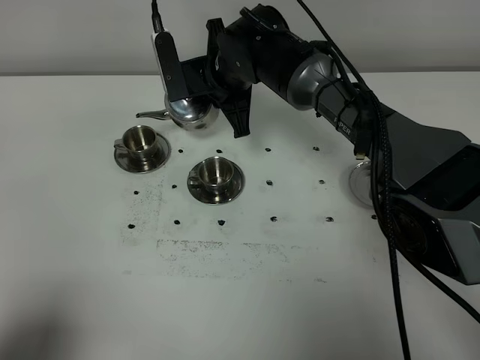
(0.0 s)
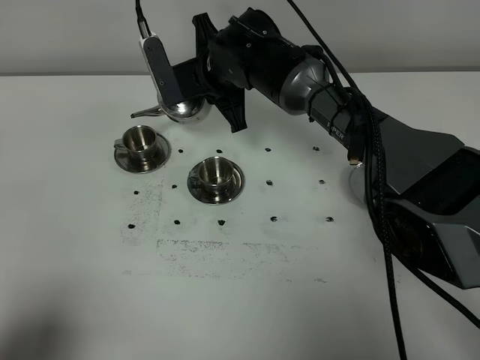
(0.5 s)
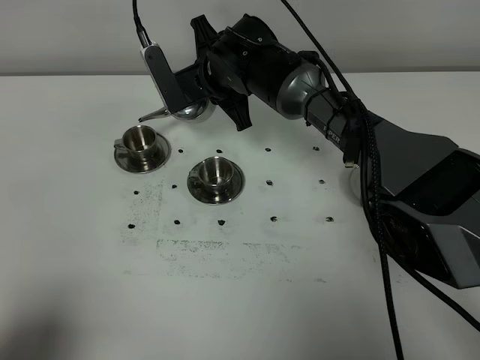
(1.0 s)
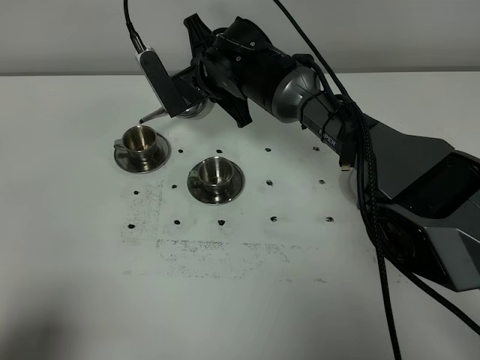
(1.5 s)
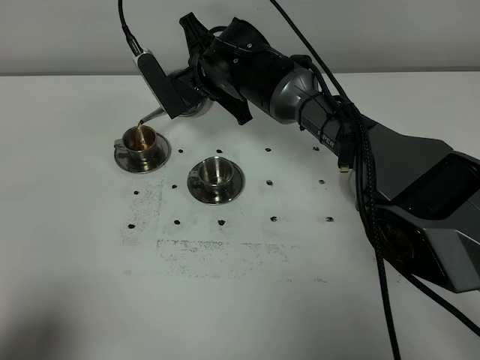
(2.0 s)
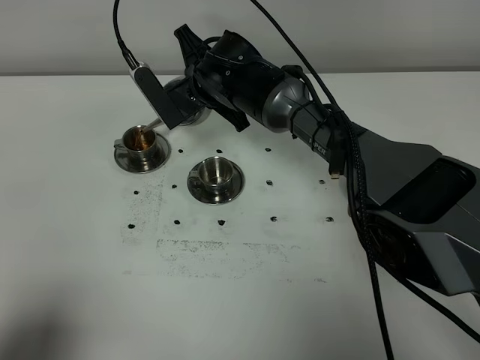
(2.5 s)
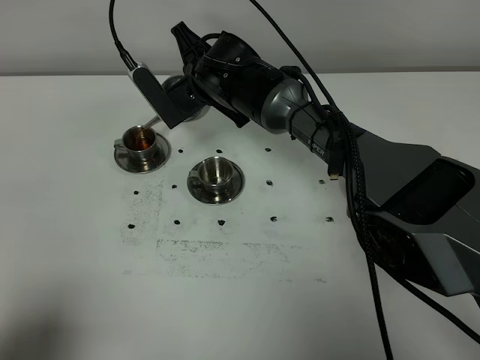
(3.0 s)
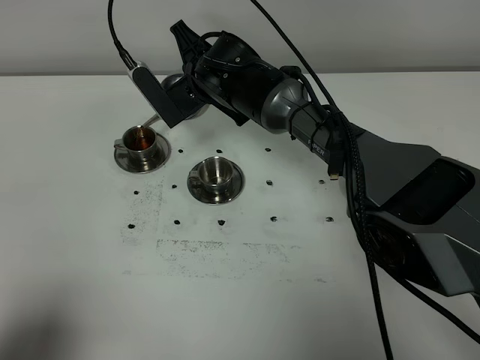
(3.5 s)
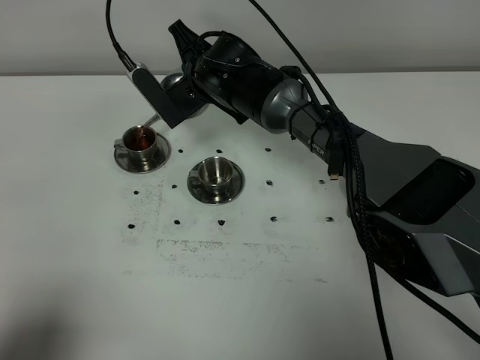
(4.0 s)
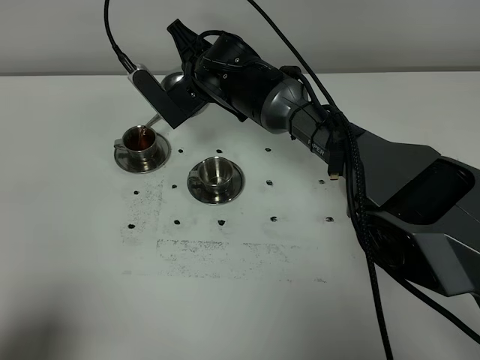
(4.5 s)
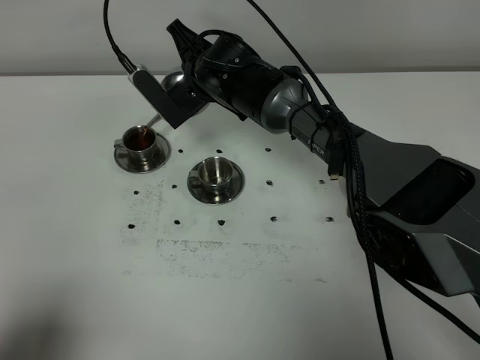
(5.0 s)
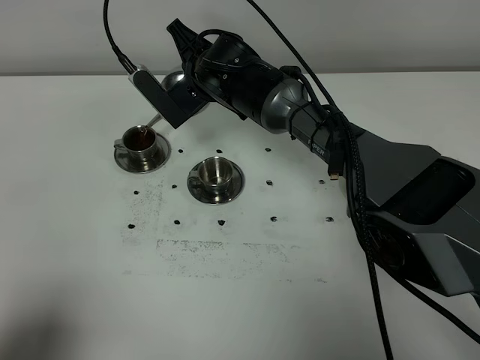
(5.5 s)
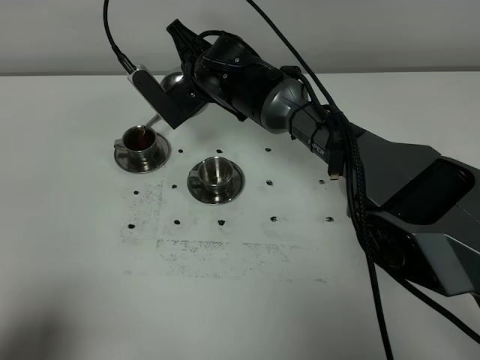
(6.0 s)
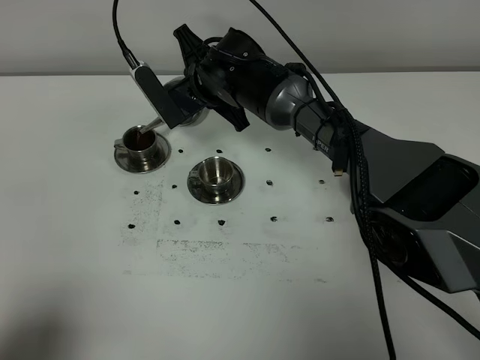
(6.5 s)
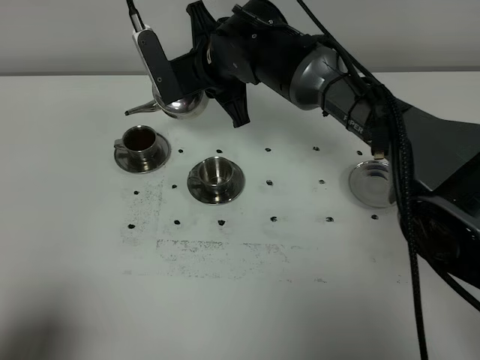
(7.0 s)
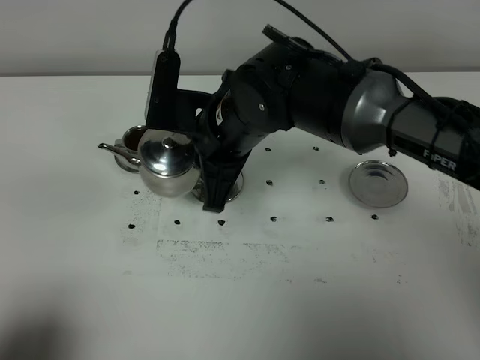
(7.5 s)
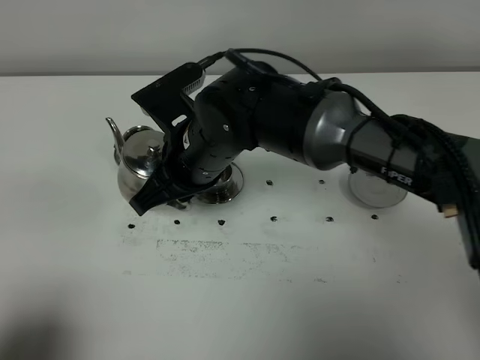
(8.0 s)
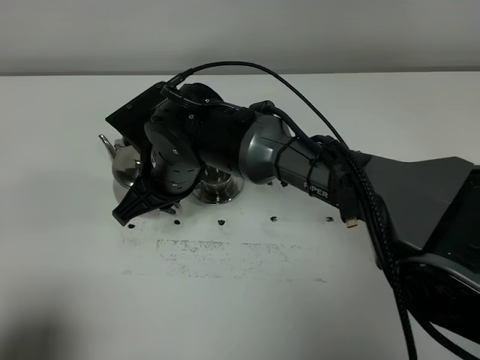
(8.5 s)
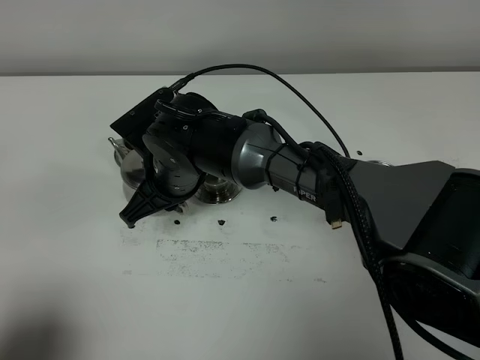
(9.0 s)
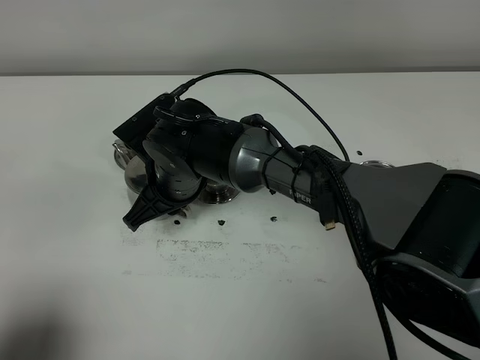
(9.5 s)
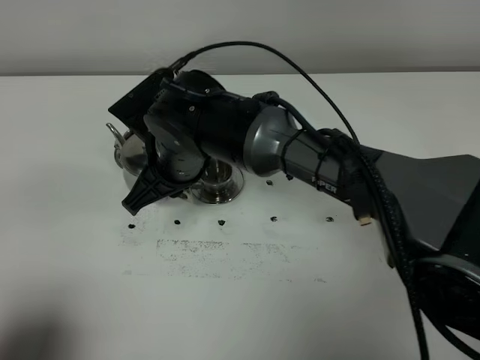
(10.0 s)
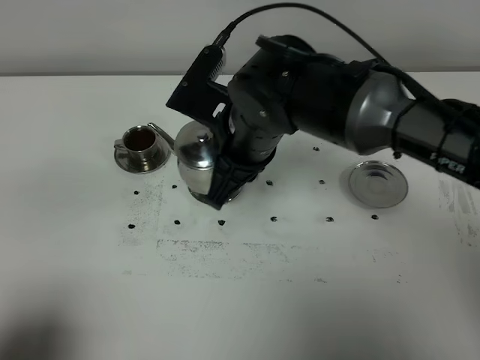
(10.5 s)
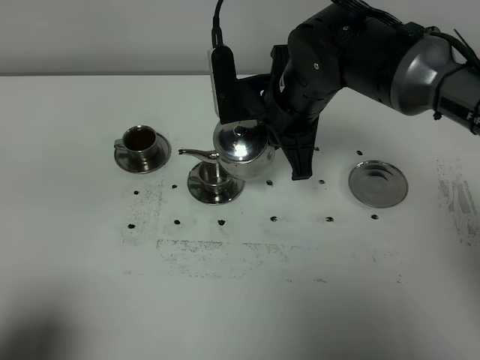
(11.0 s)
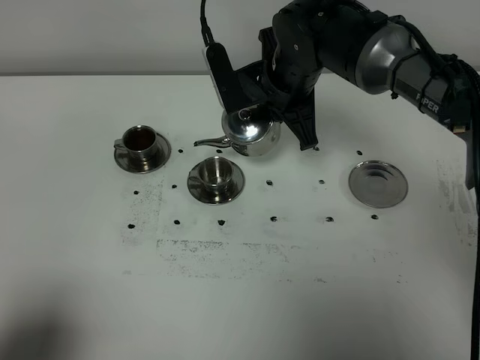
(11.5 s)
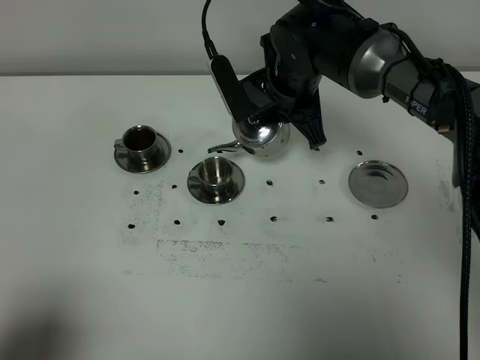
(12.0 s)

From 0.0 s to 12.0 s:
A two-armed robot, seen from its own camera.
Task of the whole recording: grasp the stainless steel teapot and pour the tea into the two stainless steel teacups one by one, put the stainless steel teapot back in its original place.
Step, from 0.0 s to 6.5 s: Pour tea into the teacup with the right gripper.
From 2.0 s to 4.0 s: The grippers move only a little.
From 4.0 s to 6.0 s: Both grippers stay put.
From 6.0 s to 8.0 s: The right gripper shifts approximately 15 cm backward.
From 10.0 s to 12.0 s: The right gripper is displaced to the right and forward by some 15 cm.

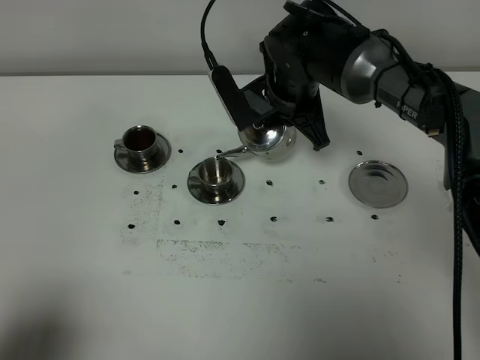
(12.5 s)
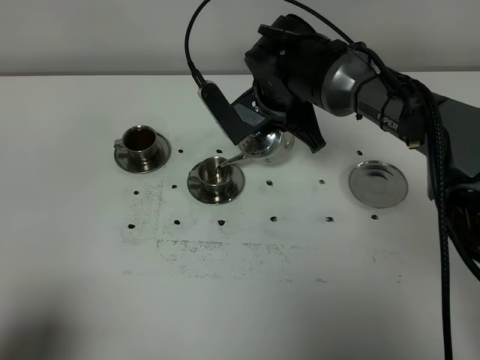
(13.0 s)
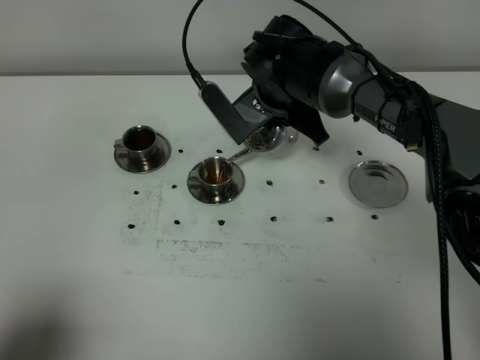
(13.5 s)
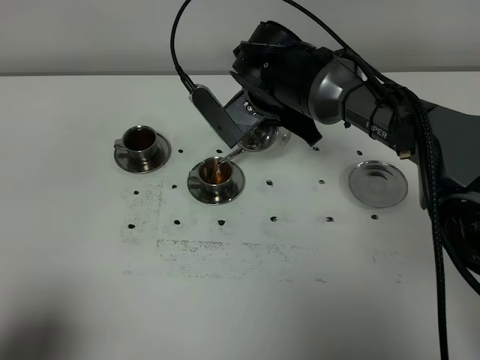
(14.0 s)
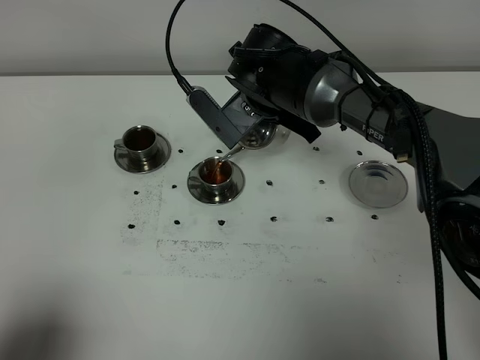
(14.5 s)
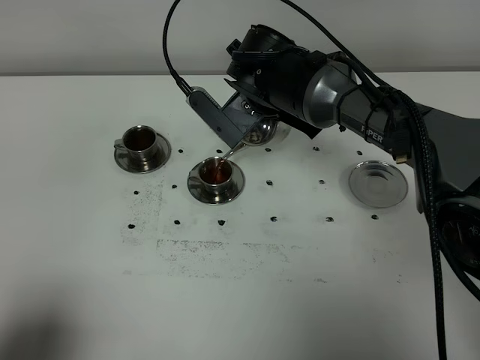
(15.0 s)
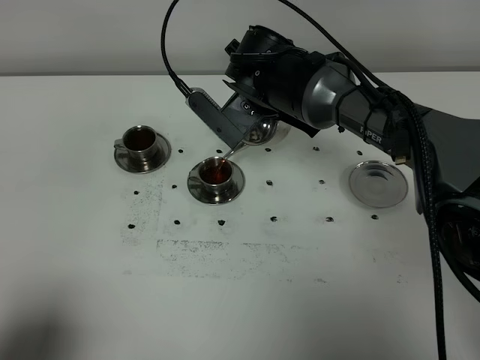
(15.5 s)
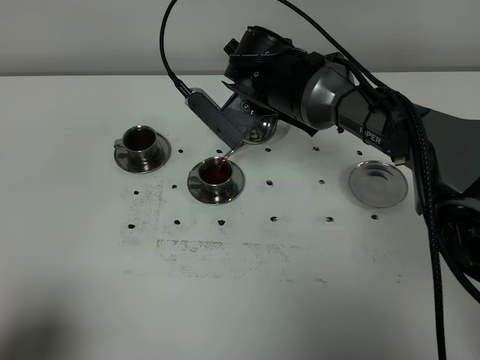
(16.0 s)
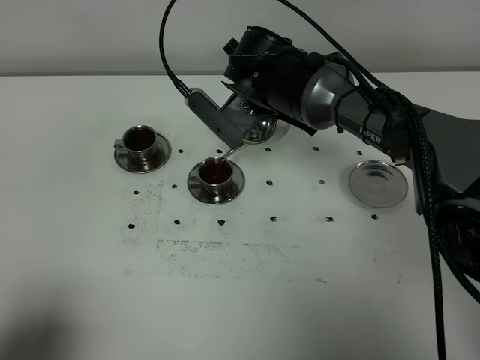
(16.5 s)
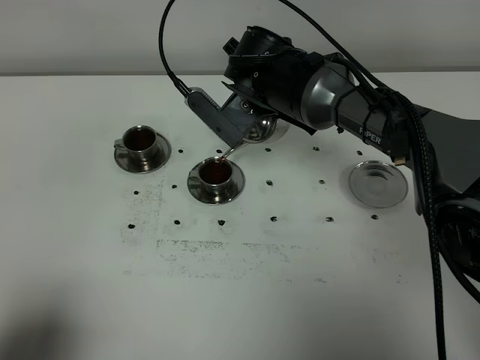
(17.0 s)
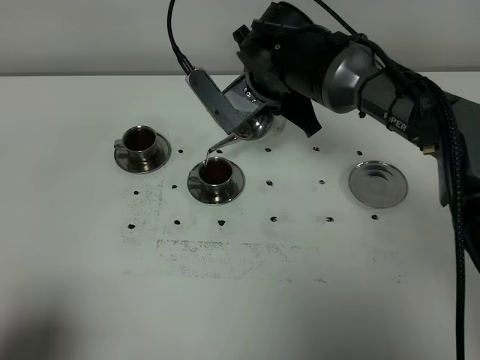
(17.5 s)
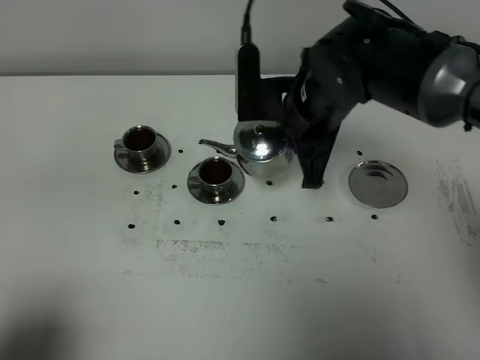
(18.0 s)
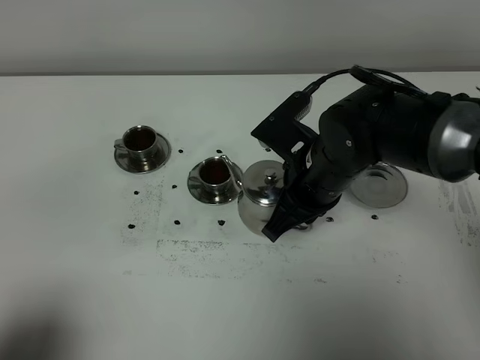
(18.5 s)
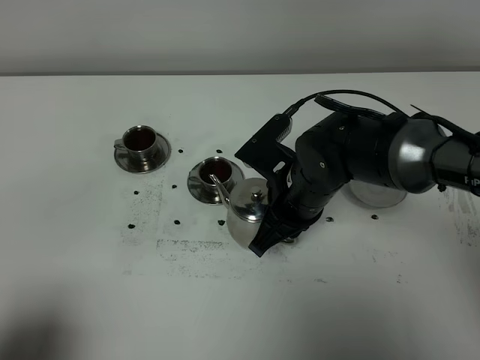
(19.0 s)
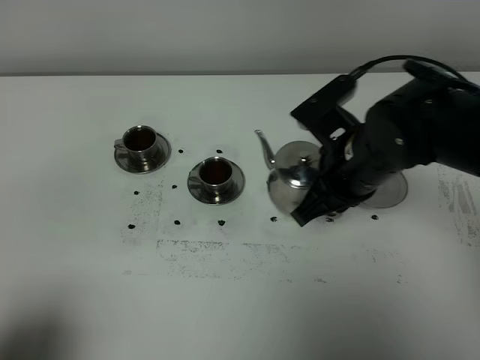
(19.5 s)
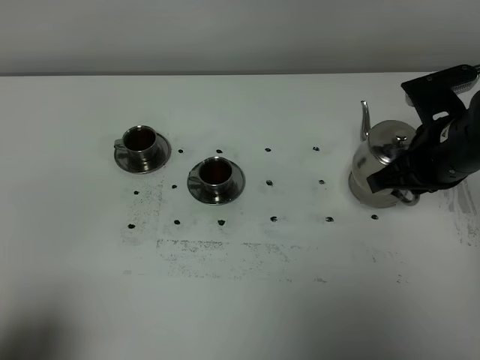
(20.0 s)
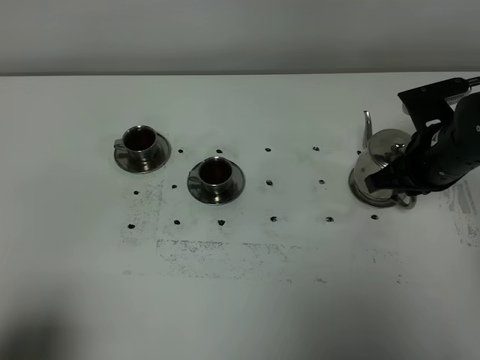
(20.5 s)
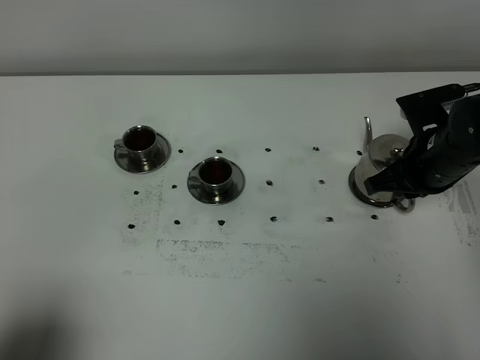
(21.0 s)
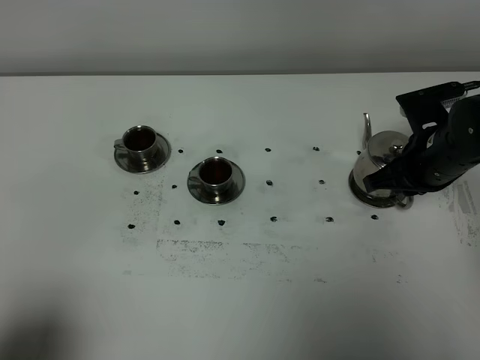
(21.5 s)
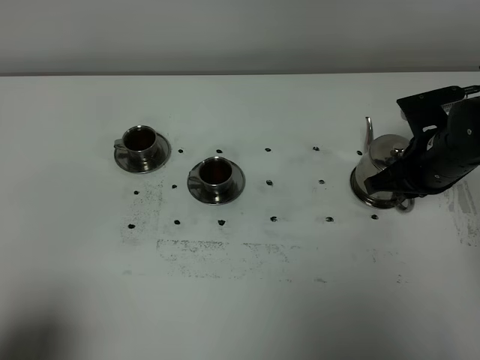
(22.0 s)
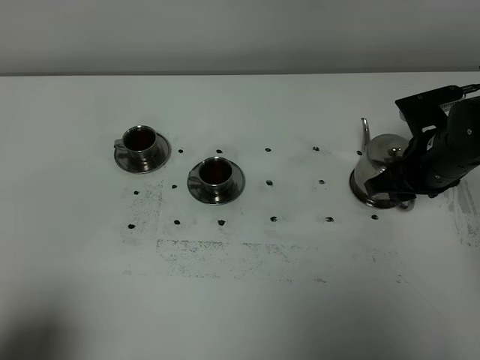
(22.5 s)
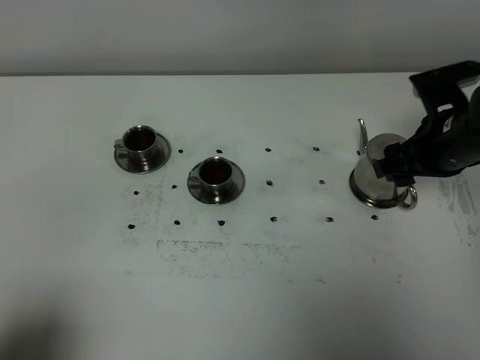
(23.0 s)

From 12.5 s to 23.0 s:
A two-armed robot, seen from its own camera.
Task of the whole recording: grasp the stainless steel teapot and pour the tea into the two stainless steel teacups one by one, put the stainless steel teapot back in its original place.
Step, from 12.5 s to 17.5 s: Pour tea into the teacup with the right gripper.
From 12.5 s to 14.5 s: The grippers make only small movements.
From 14.5 s to 16.5 s: The grippers move only a little.
From 16.5 s to 19.0 s: The right gripper is displaced backward and downward by about 15 cm.
From 19.0 s to 21.0 s: The right gripper moves to the right, some 15 cm.
From 21.0 s to 23.0 s: The right gripper opens up.

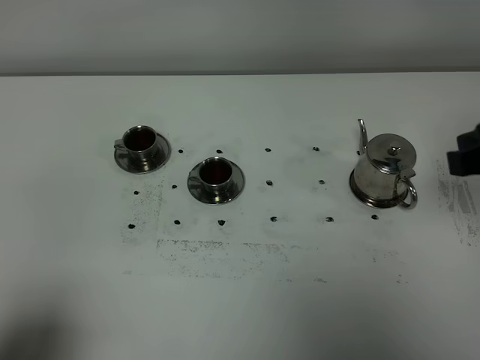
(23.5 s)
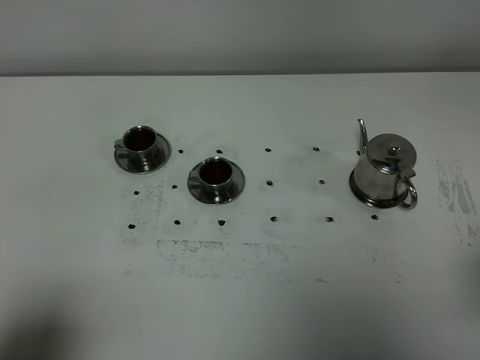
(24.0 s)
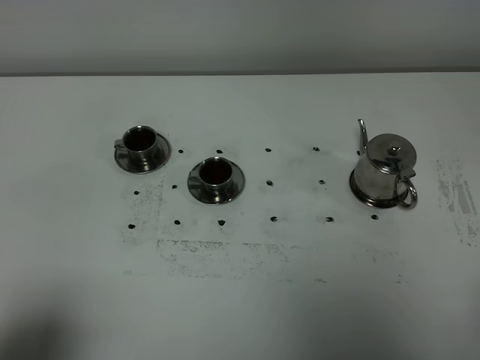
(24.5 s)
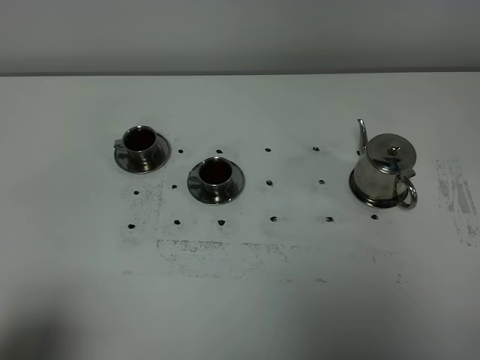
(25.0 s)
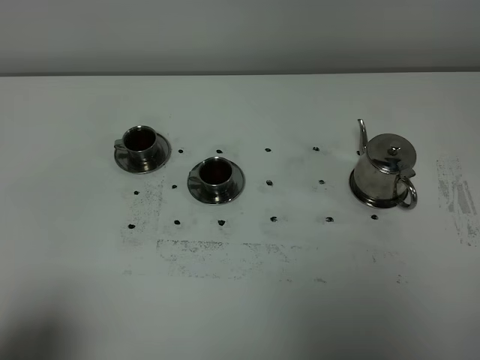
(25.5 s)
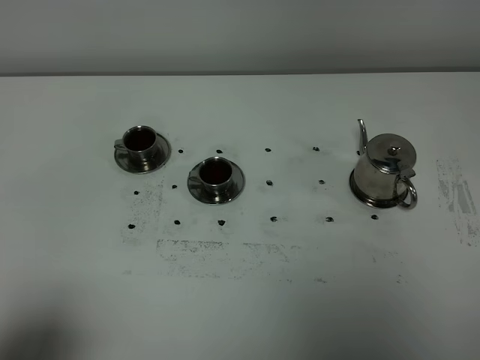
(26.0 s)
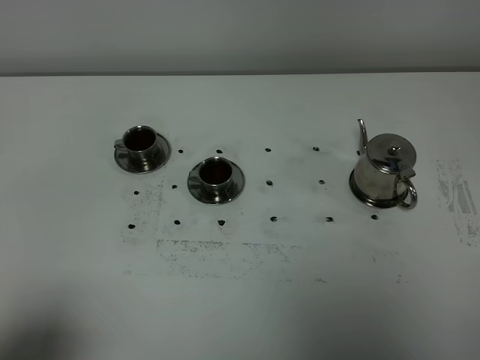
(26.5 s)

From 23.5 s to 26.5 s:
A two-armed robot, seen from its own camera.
Task of the whole recording: grasp the stainless steel teapot and pour the tea into the two stainless steel teacups one by one, put the stainless steel teapot back in its original place.
From 23.5 s to 25.0 s: The right gripper goes roughly 20 cm backward, and closes.
From 25.0 s to 26.5 s: Both grippers stay about where they are.
